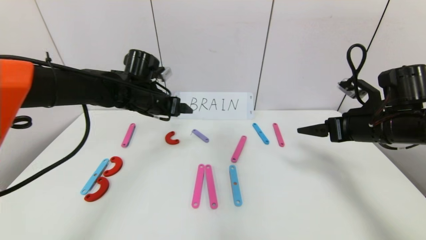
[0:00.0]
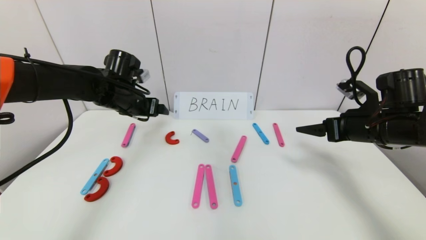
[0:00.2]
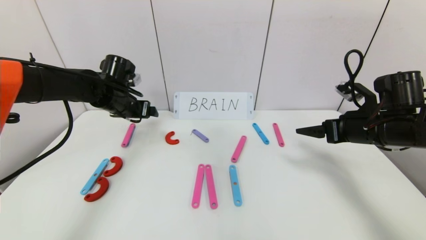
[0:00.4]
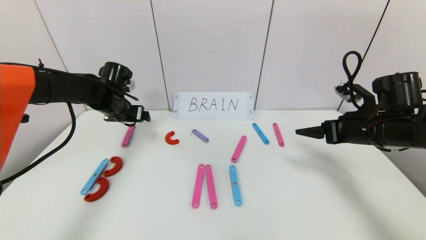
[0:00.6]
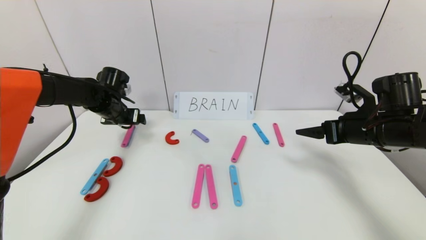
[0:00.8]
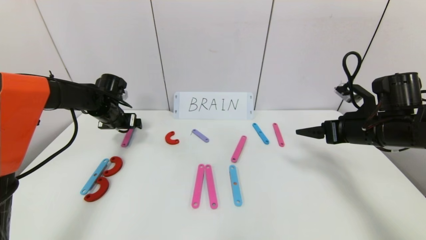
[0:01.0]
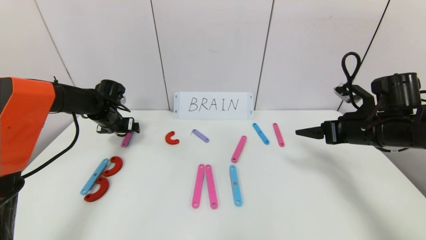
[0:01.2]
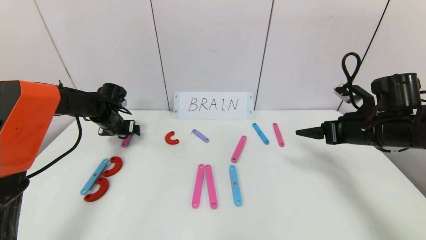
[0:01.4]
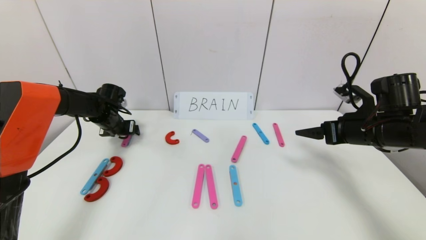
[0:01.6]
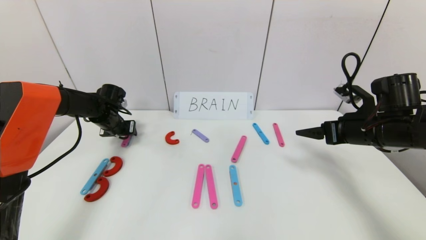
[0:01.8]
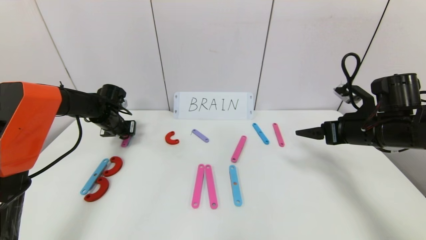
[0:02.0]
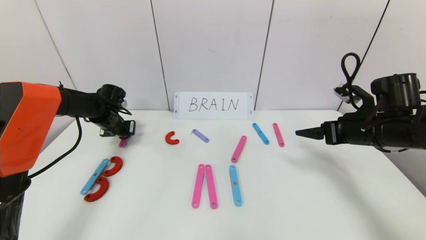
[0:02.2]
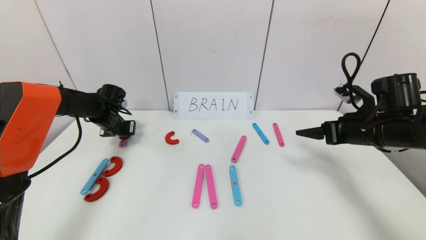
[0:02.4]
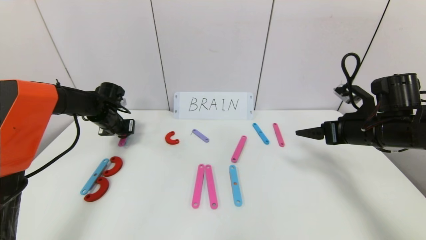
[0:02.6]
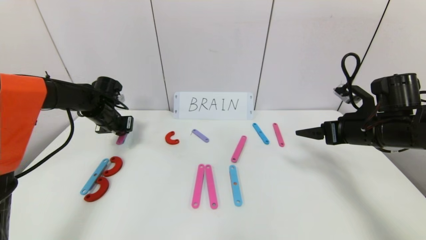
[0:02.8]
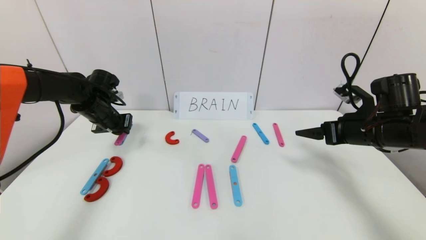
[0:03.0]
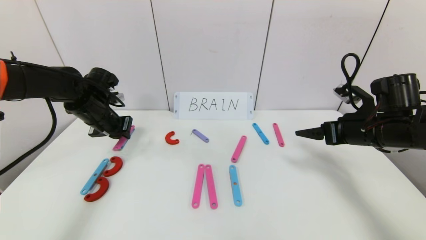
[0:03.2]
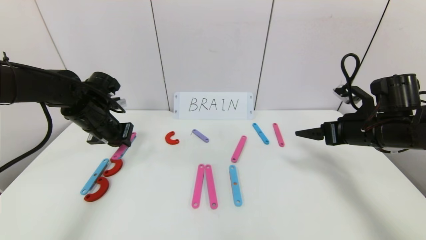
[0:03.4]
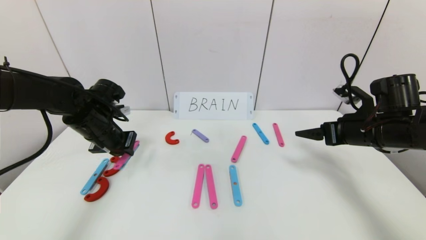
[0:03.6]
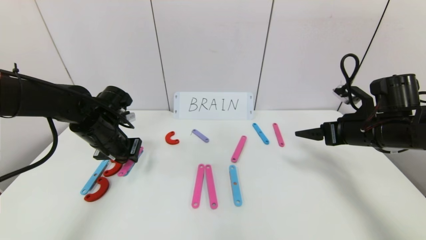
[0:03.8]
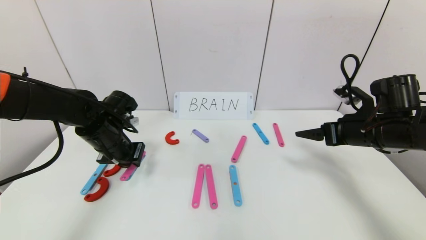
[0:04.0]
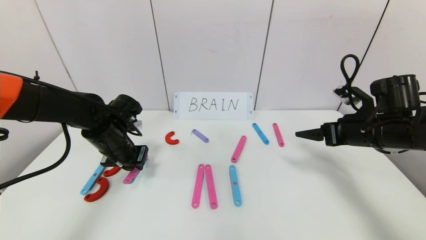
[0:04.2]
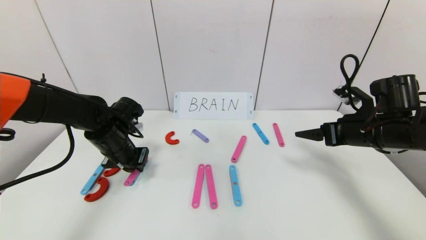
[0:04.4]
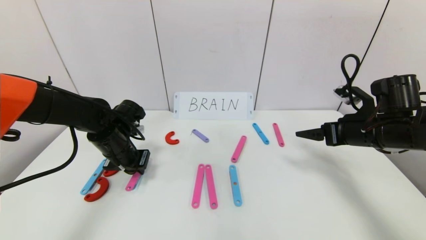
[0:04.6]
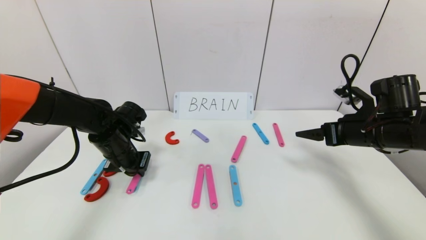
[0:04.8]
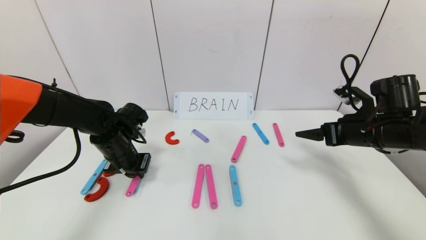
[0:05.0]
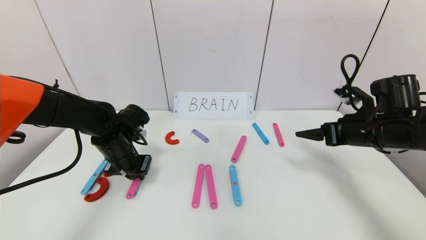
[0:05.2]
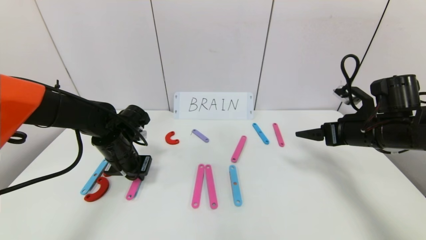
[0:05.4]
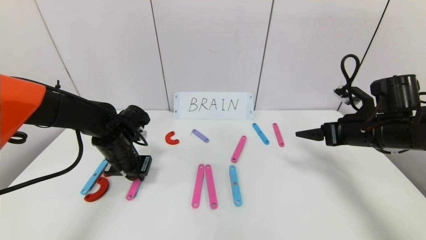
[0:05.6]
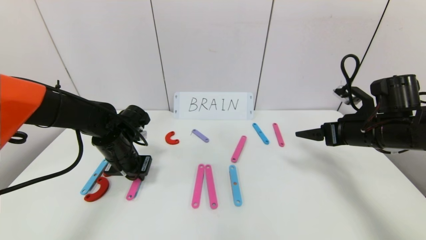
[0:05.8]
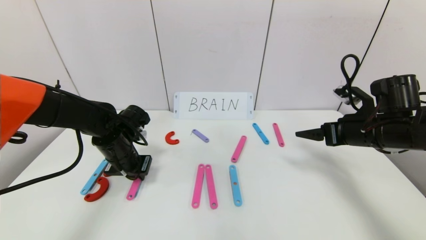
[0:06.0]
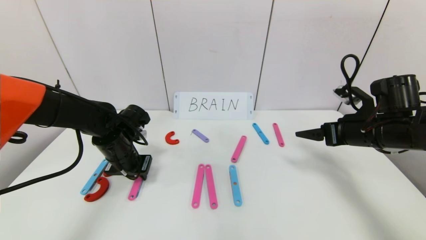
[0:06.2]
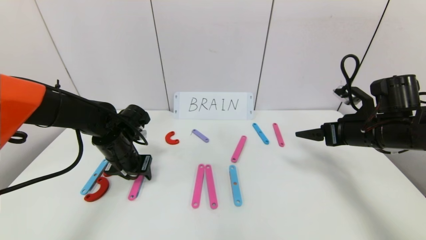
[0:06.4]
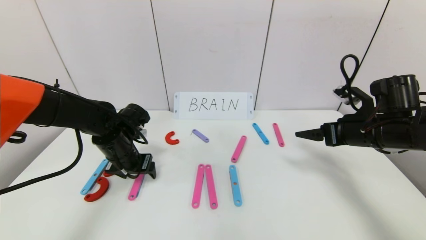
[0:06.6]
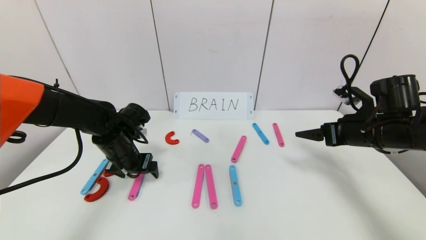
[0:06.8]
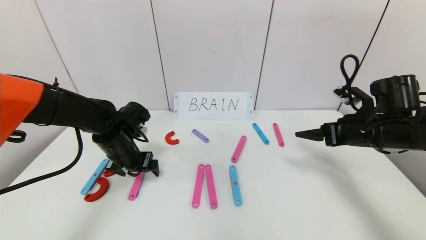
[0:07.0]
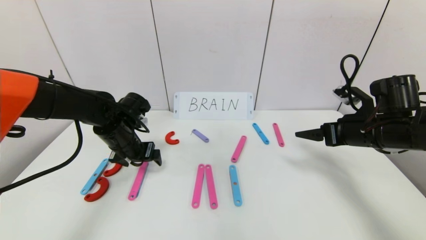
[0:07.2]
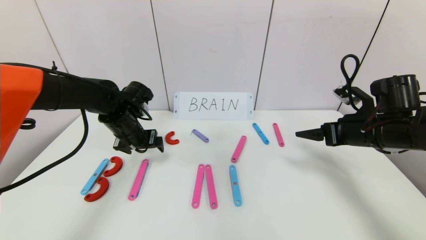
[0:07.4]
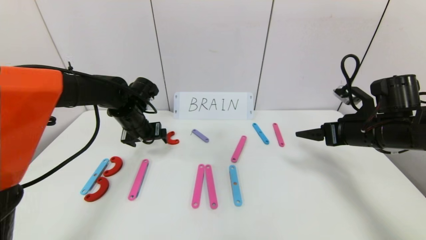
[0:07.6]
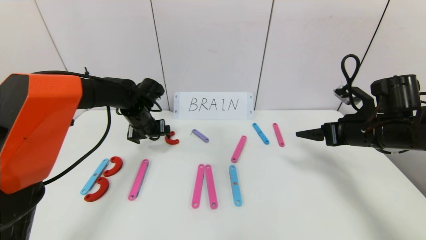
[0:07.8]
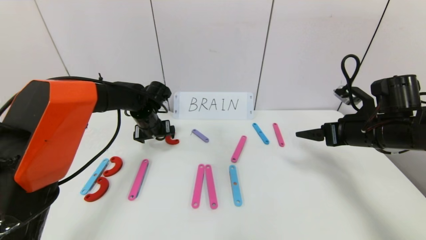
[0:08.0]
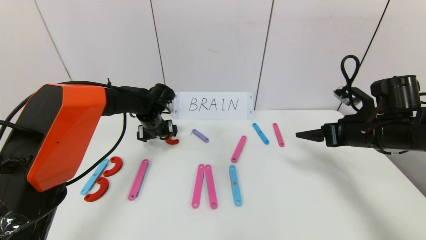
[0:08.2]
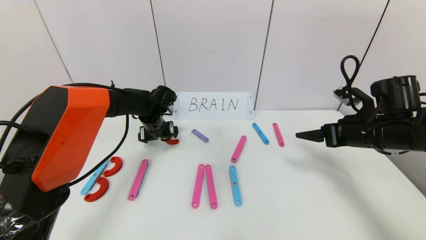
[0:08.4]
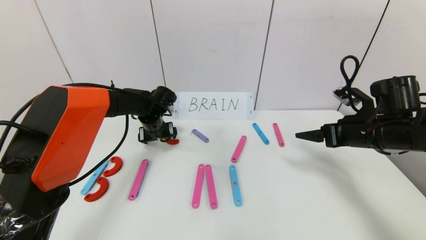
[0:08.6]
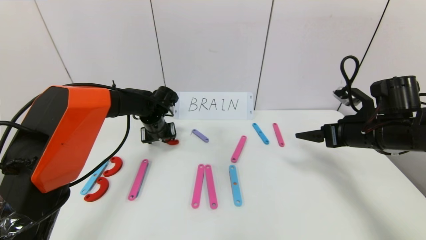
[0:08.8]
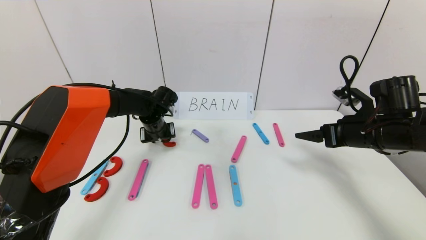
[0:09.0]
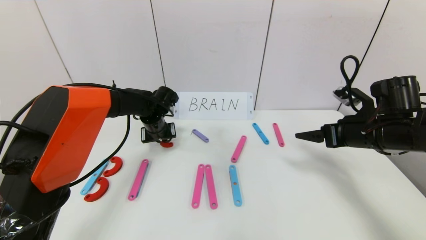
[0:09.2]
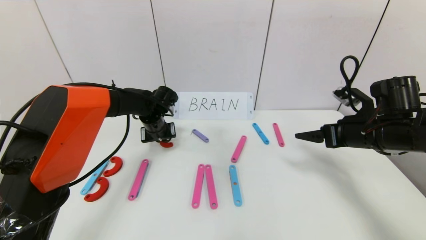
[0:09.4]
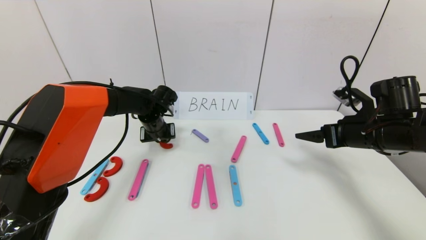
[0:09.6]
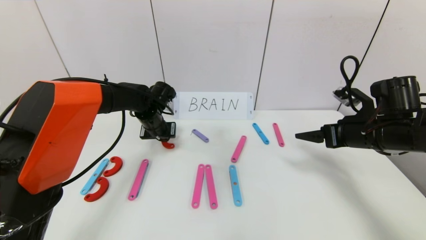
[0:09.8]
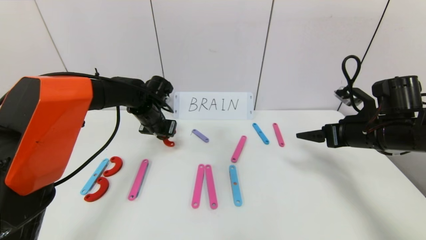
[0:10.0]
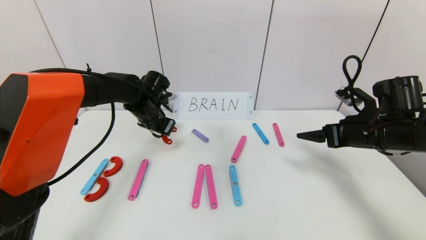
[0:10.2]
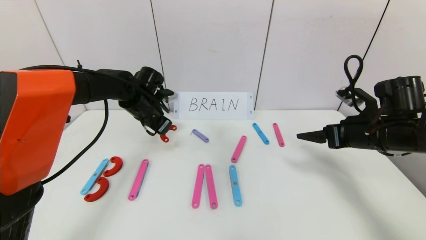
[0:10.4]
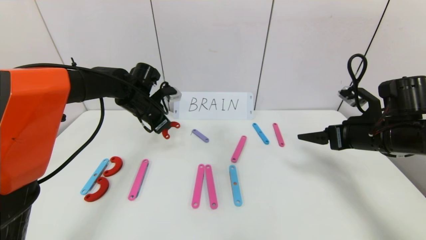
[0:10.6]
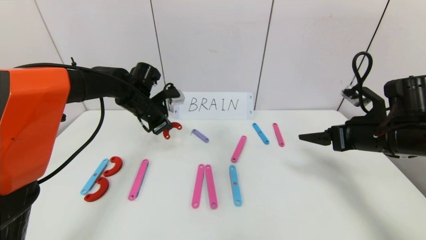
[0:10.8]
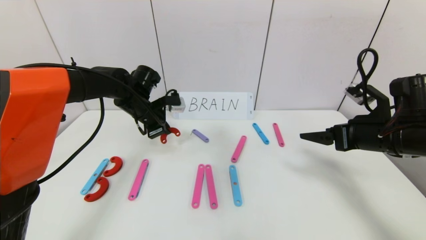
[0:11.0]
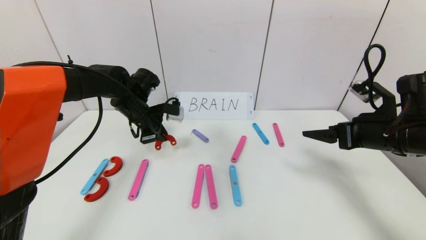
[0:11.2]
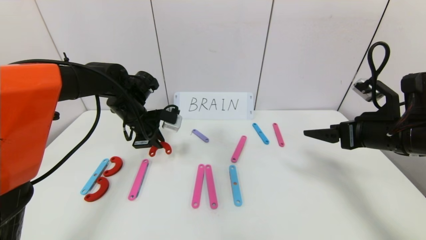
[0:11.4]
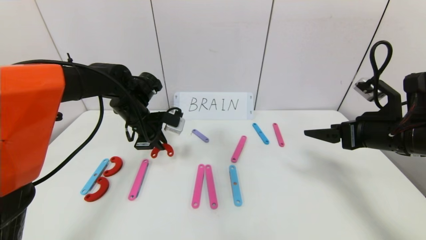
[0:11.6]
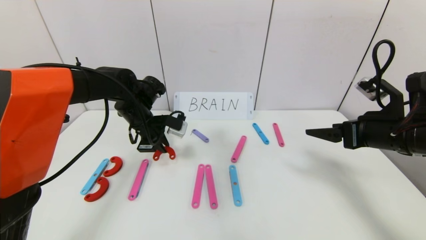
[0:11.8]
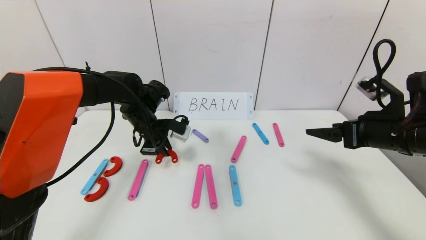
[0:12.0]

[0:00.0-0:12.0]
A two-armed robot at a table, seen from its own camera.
Task of the whole recording: rearrange the word baai as brain.
0:00.0 to 0:01.6: The left gripper is displaced to the left, downward and forward by about 20 cm.
0:01.6 to 0:03.0: The left gripper travels upward and backward by roughly 10 cm, and closes its fingers.
0:03.0 to 0:04.4: The left gripper travels backward and to the right by some 10 cm.
0:04.4 to 0:06.0: The grippers stay close to where they were, moving slightly.
0:06.0 to 0:07.6: The left gripper travels forward by approximately 5 cm, and opens.
0:07.6 to 0:09.0: The left gripper changes place by some 5 cm, and closes up.
0:09.0 to 0:10.4: The left gripper shifts some 5 cm upward.

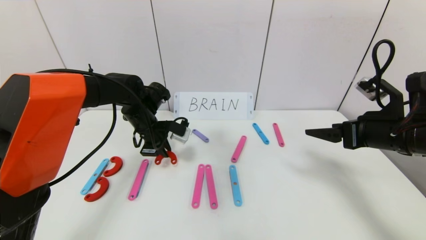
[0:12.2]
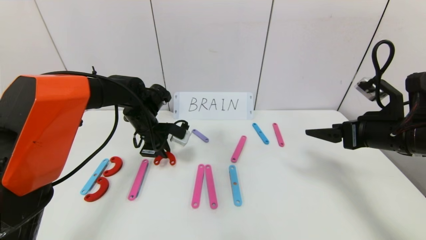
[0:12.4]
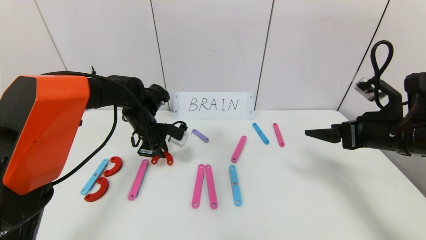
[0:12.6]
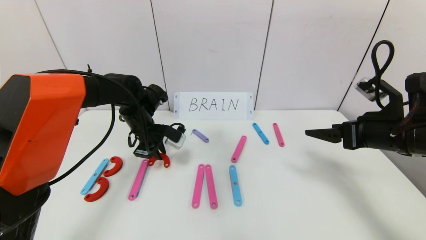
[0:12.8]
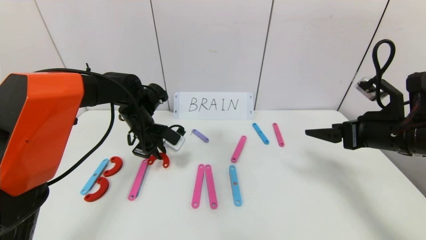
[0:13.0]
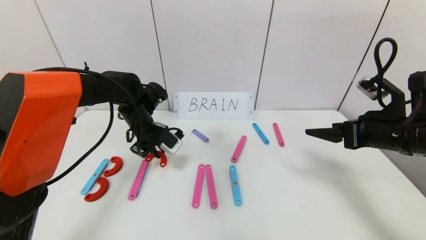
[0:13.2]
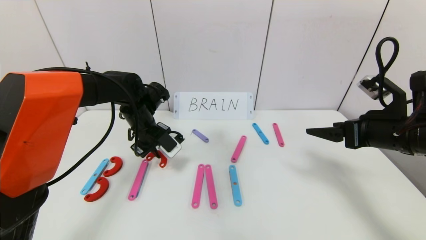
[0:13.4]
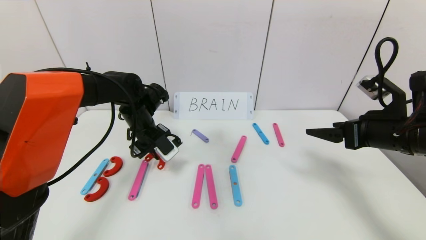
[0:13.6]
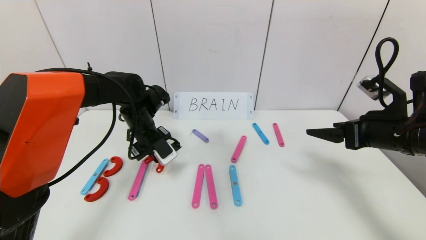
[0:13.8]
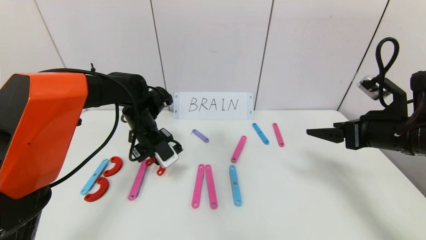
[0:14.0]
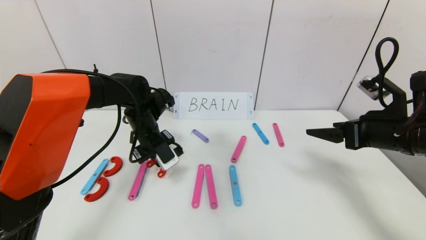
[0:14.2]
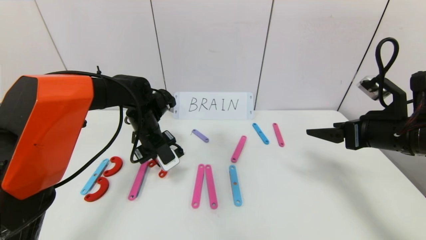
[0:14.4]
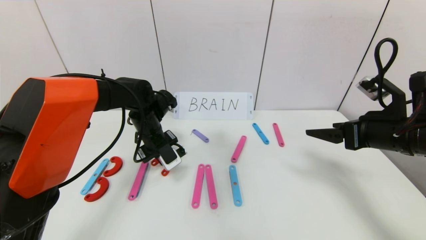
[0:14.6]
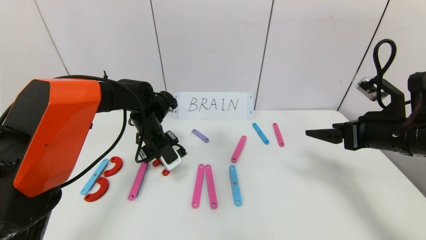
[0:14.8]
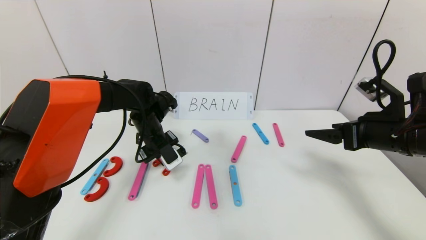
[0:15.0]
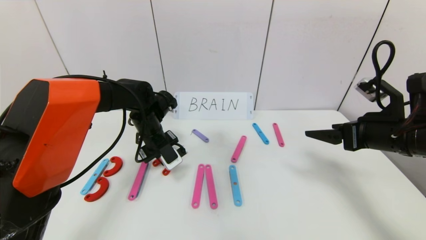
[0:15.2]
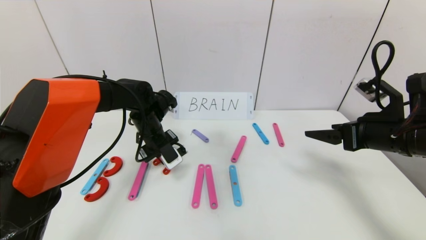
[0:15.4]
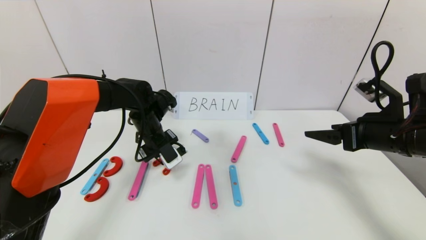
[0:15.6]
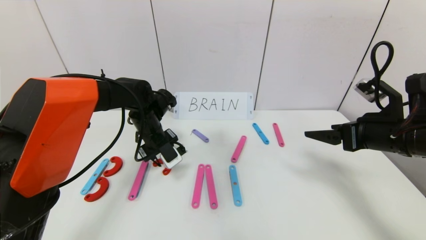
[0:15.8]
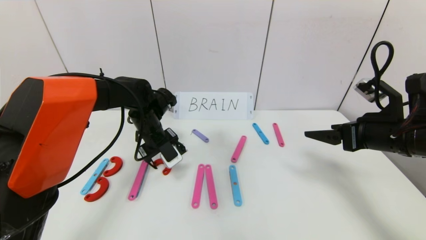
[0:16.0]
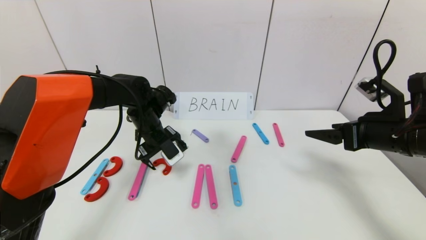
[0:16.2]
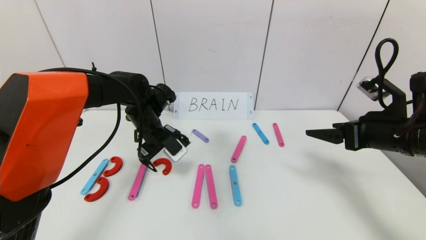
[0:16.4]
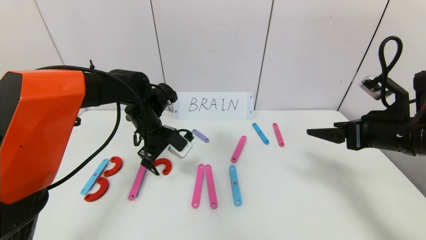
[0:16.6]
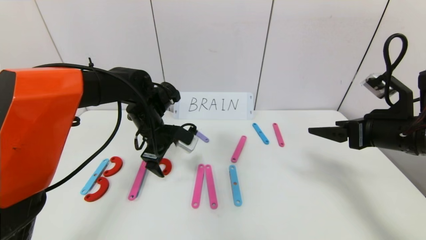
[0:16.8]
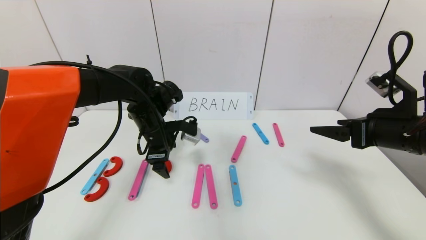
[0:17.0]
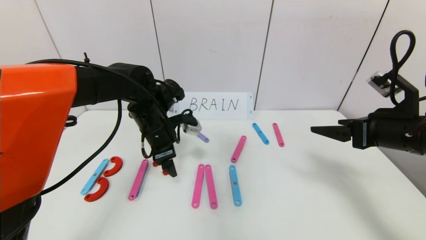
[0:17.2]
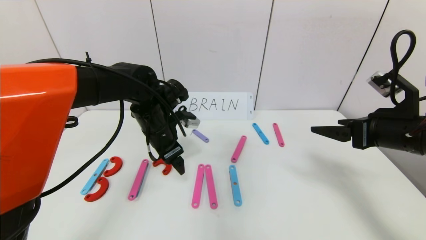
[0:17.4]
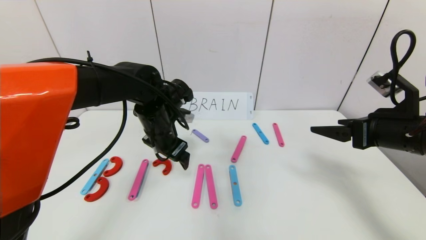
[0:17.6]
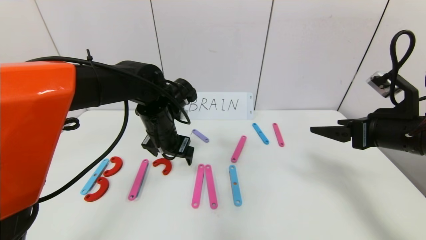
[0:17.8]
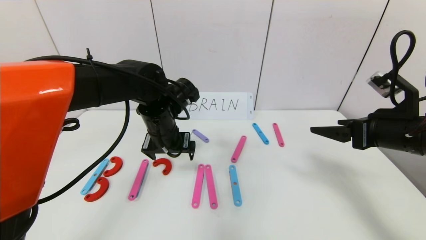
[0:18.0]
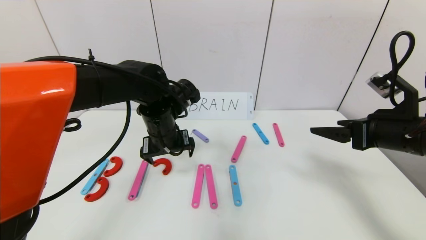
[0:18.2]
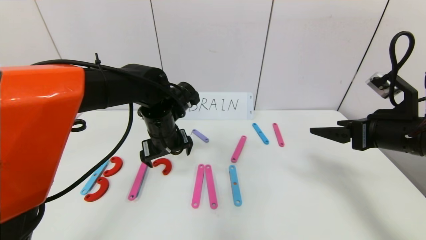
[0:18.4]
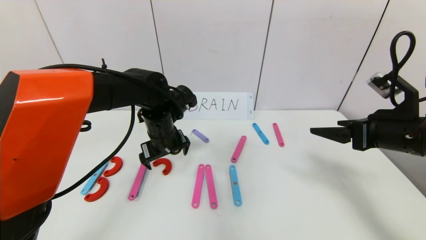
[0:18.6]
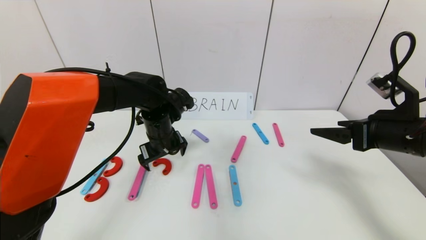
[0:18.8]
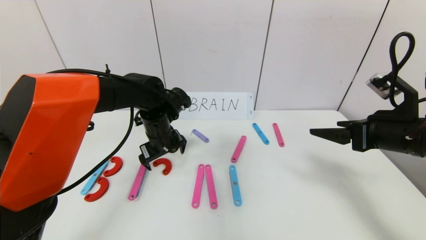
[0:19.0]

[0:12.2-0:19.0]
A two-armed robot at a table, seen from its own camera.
Task of the whole recording: rearrange the word baai as brain.
0:13.6 to 0:15.0: The grippers make only small movements.
0:15.0 to 0:16.2: The left gripper opens.
0:16.2 to 0:17.6: The left gripper moves about 5 cm.
